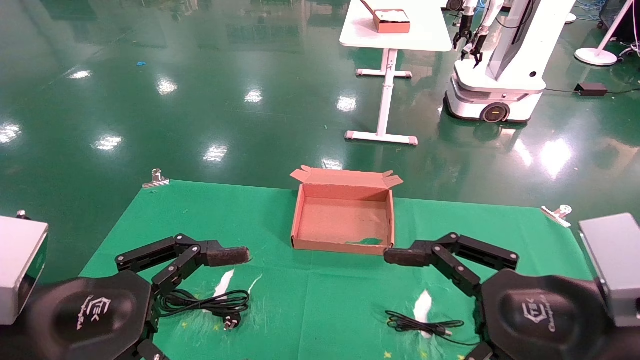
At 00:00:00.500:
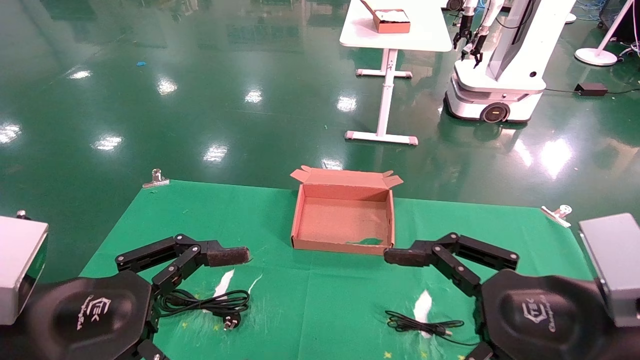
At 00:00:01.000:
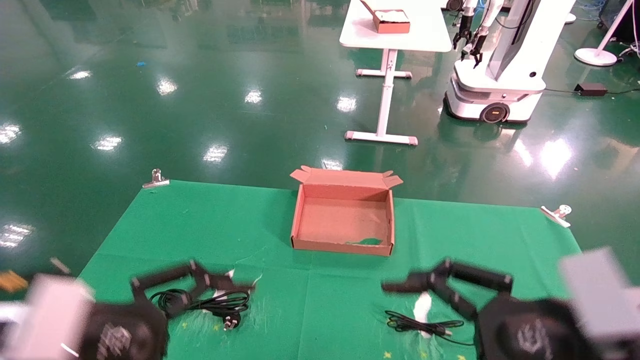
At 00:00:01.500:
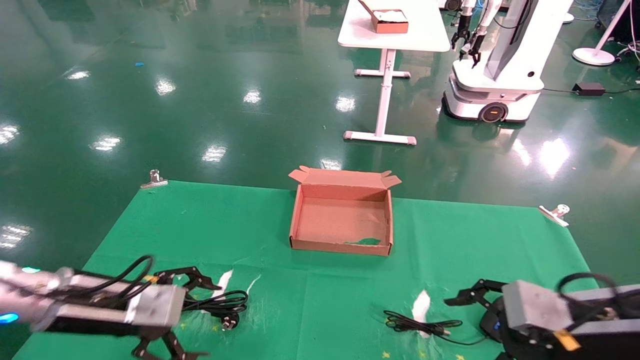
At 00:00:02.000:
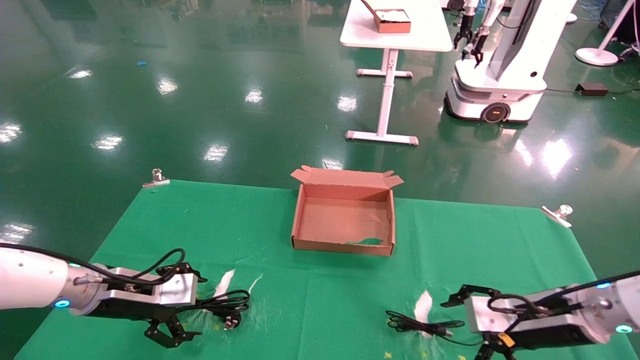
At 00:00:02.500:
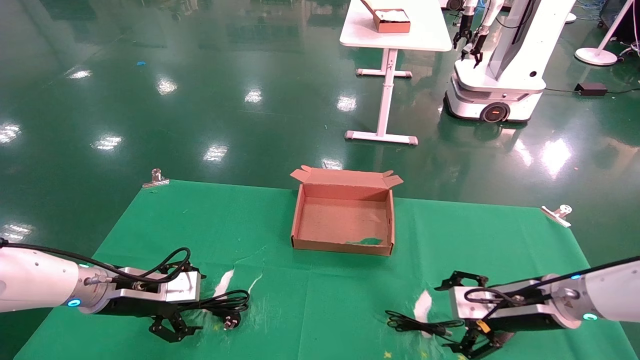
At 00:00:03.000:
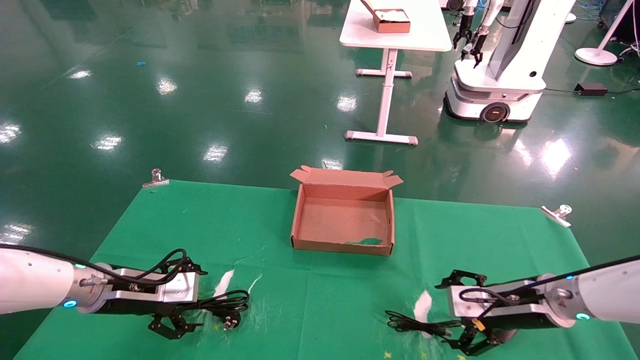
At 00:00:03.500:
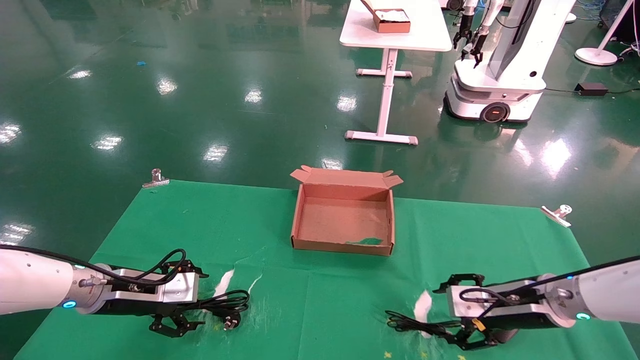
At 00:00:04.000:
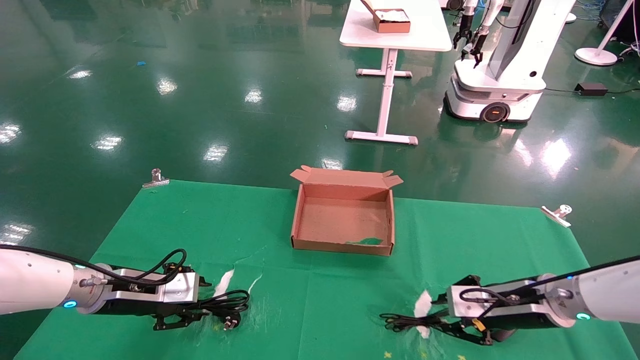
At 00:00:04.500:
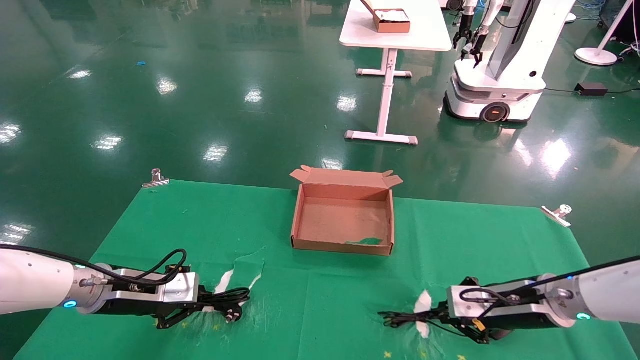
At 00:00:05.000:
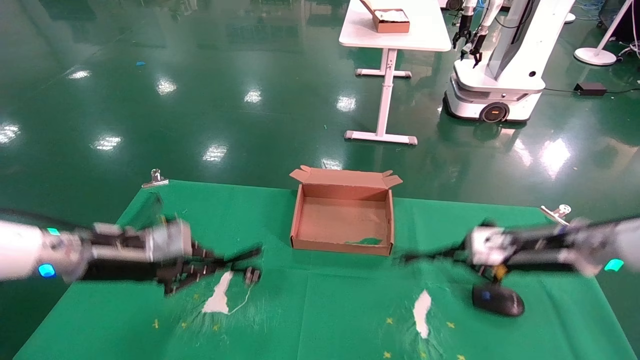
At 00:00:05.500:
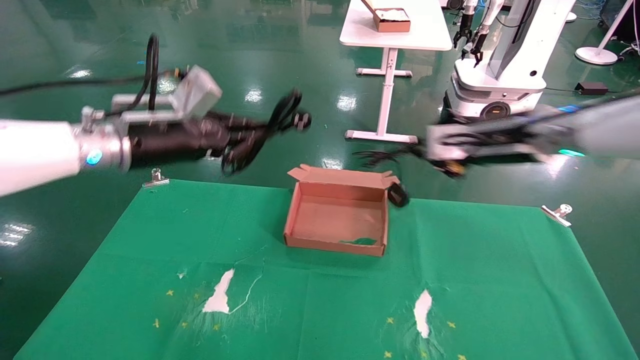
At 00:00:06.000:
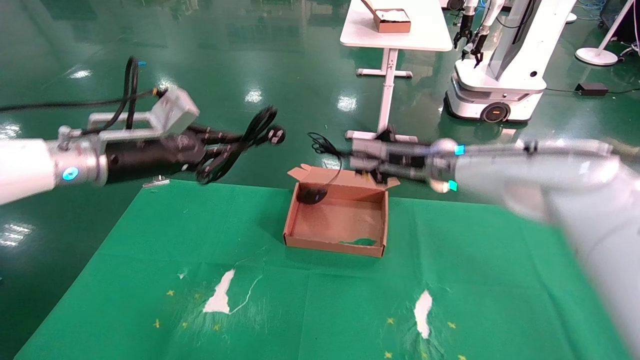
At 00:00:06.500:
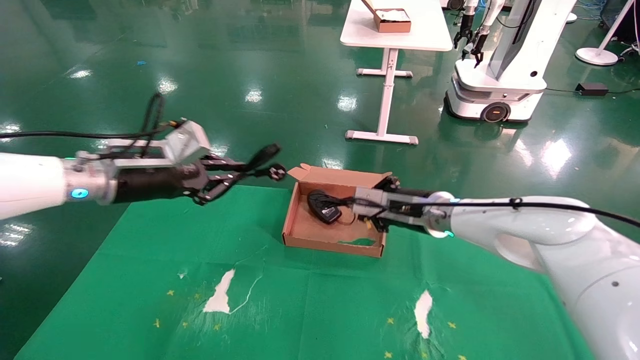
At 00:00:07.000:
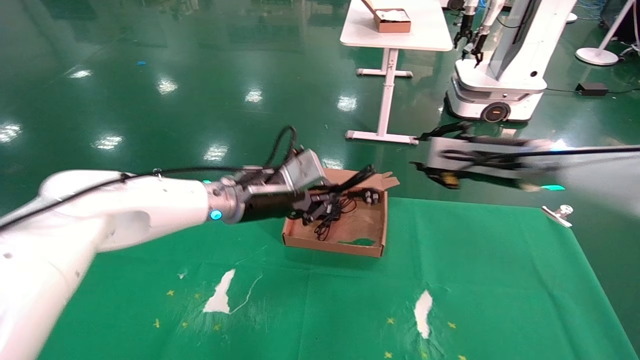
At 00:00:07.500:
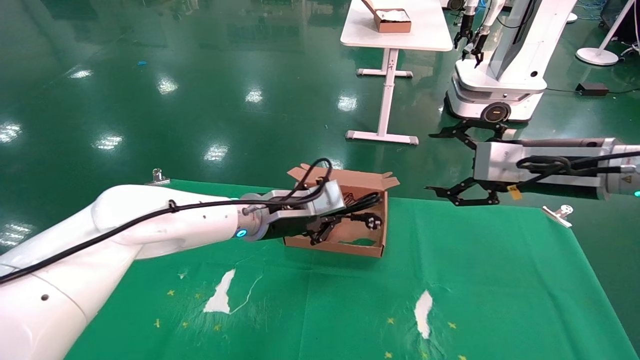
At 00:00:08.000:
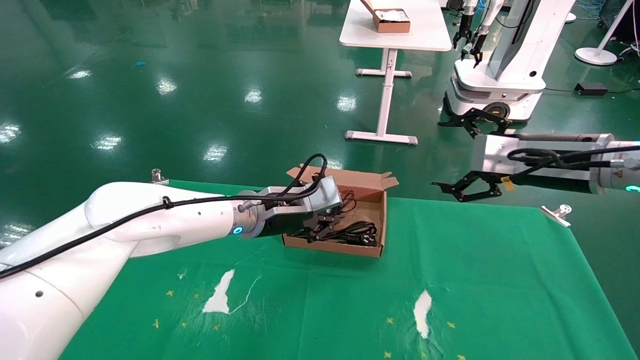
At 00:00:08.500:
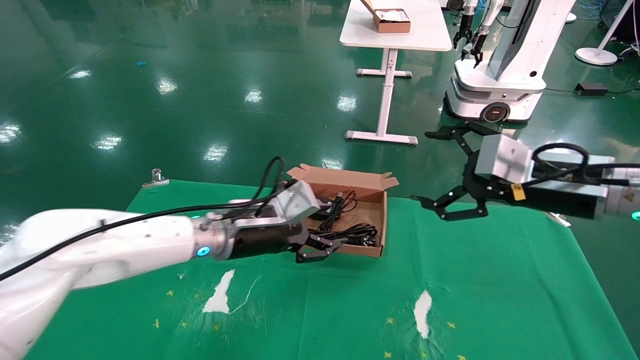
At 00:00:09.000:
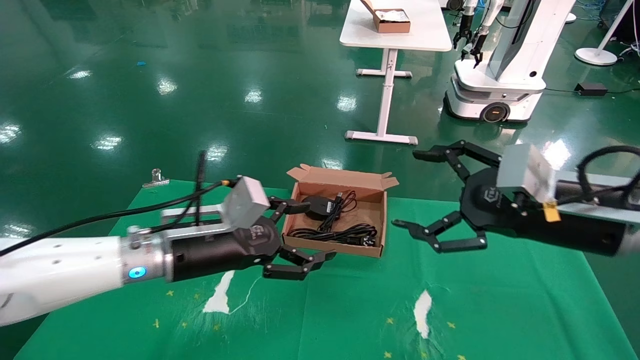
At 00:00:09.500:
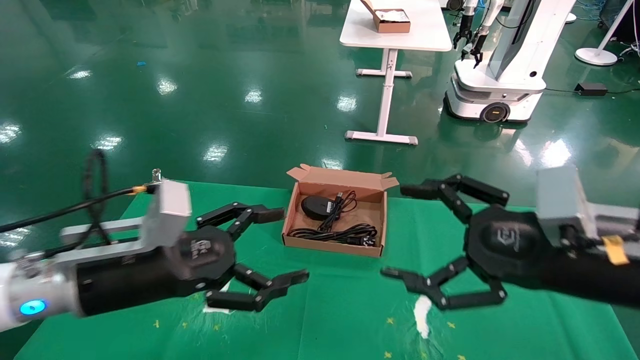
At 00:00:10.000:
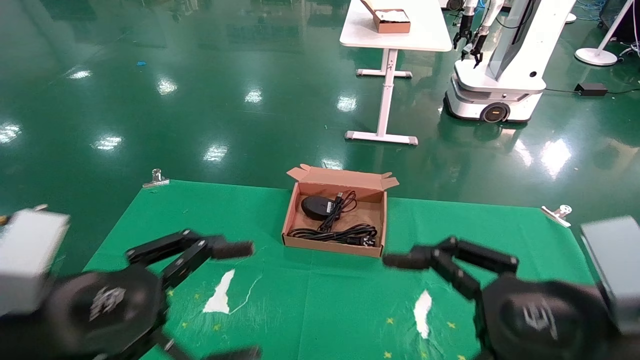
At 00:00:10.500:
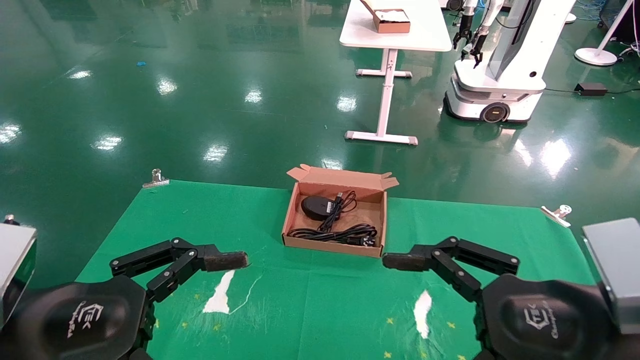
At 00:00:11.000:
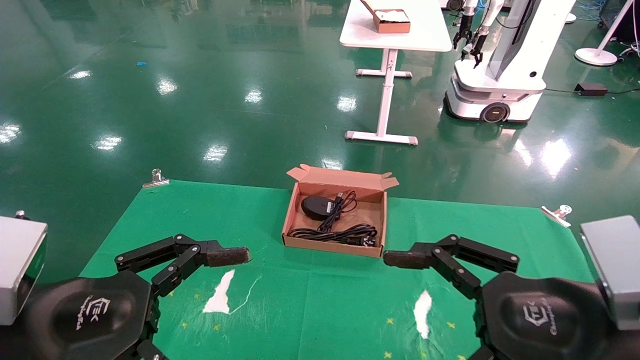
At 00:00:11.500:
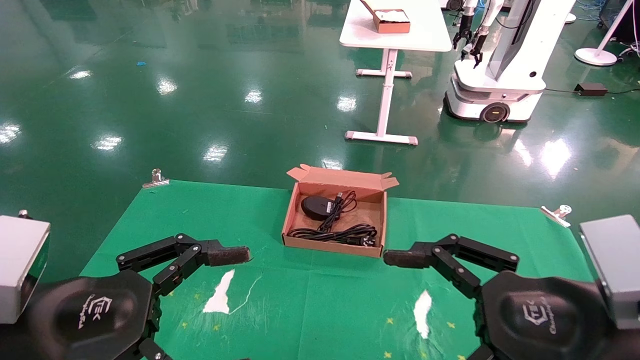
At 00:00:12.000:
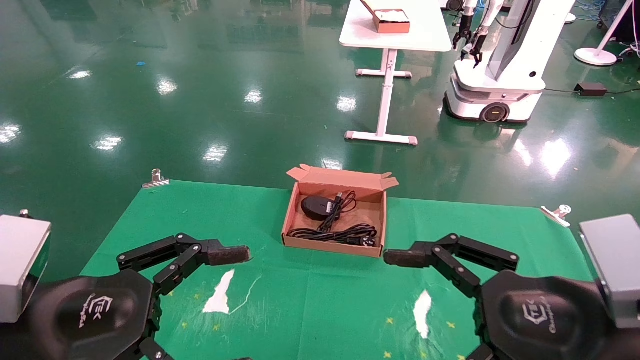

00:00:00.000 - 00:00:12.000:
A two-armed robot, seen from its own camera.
Step, 00:00:01.000 - 00:00:04.000: Grab and lift both the mouse and power cord from the accessory packaging area at the same time.
Step, 00:00:04.500 - 00:00:08.000: Place the mouse and power cord into the box.
00:00:00.000 - 00:00:02.000: Both grippers travel together forward and downward, roughly 20 cm.
00:00:02.000 - 00:00:04.000: The left gripper closes. Meanwhile the right gripper closes its fingers.
00:00:04.000 - 00:00:06.000: The left gripper shifts some 20 cm upward, and closes up; the right gripper goes roughly 25 cm upward, to the left and forward, and closes up.
00:00:06.000 - 00:00:08.000: The right gripper moves to the right and backward, approximately 20 cm, and opens. Meanwhile the left gripper travels to the right and downward by about 20 cm.
00:00:08.000 - 00:00:10.000: The right gripper shifts about 20 cm backward and downward, while the left gripper travels backward and to the left by some 30 cm, and opens.
00:00:10.000 - 00:00:12.000: The grippers stay close to where they were, moving slightly.
